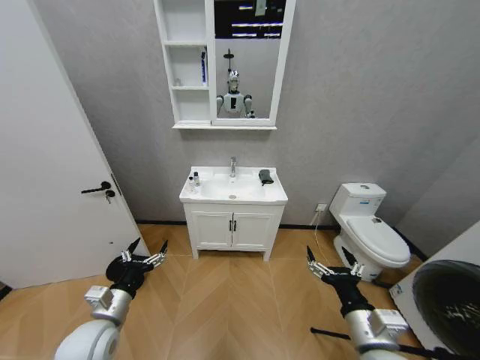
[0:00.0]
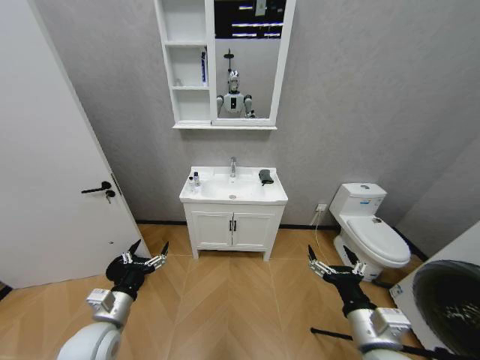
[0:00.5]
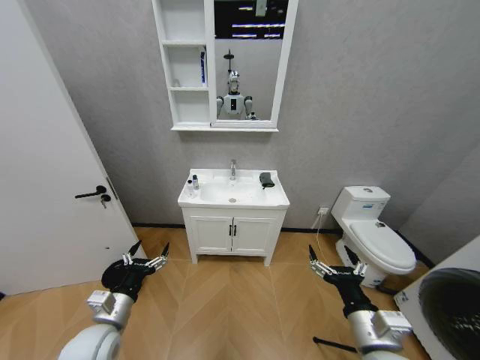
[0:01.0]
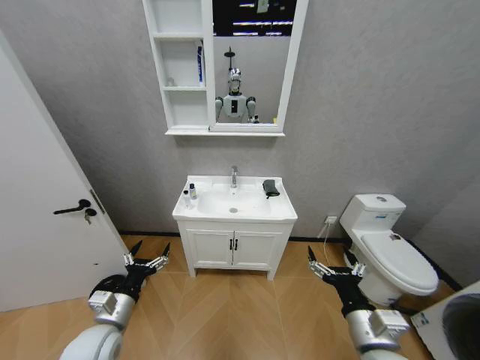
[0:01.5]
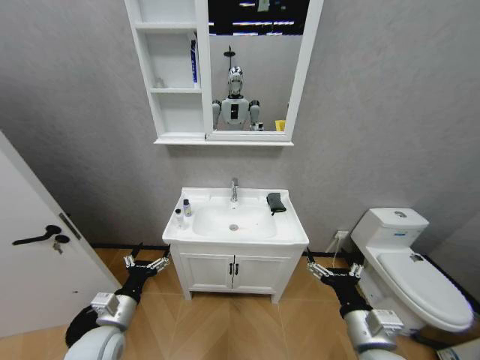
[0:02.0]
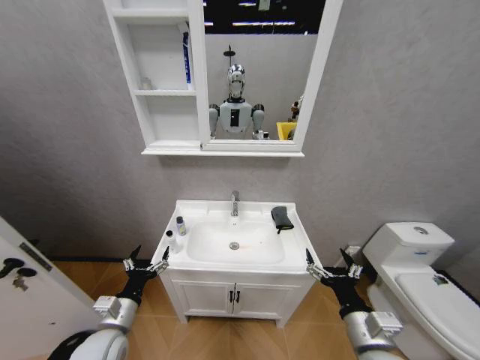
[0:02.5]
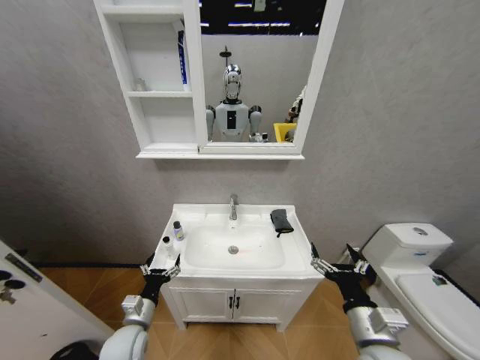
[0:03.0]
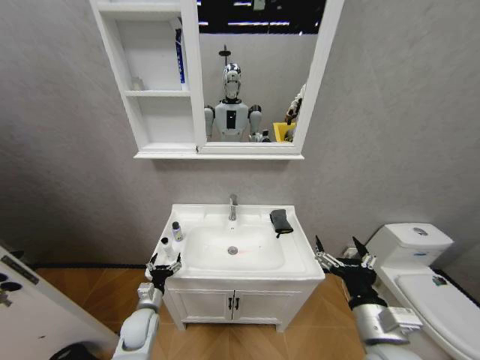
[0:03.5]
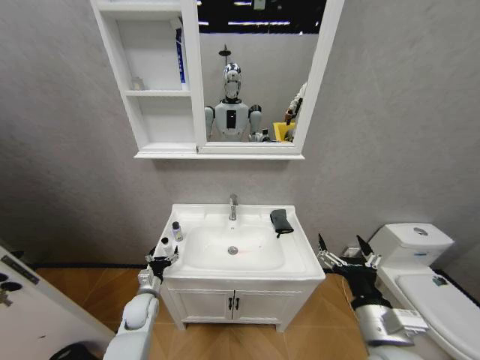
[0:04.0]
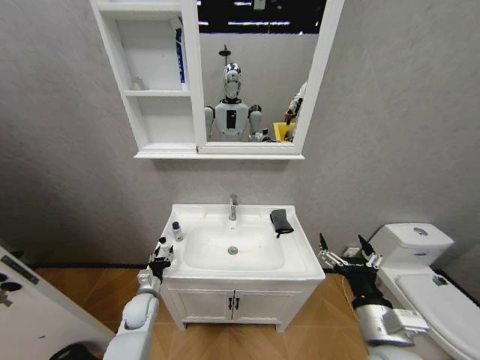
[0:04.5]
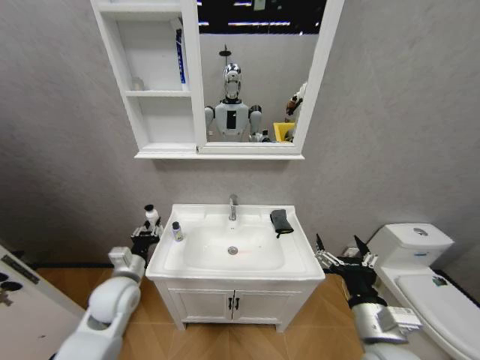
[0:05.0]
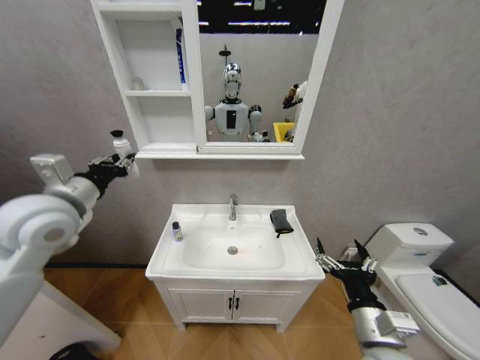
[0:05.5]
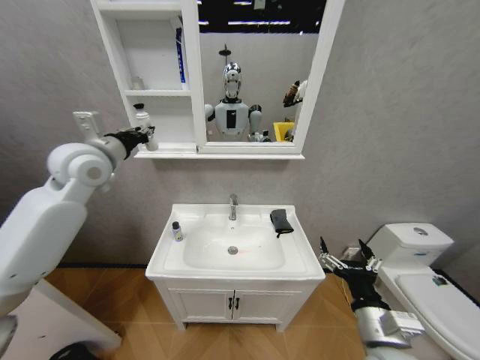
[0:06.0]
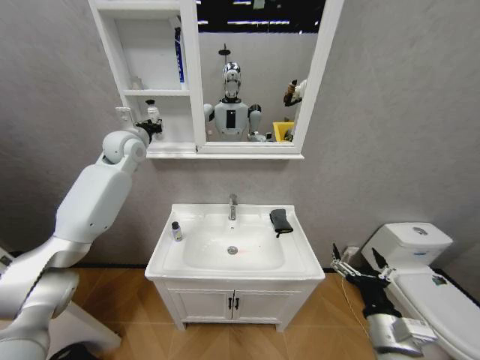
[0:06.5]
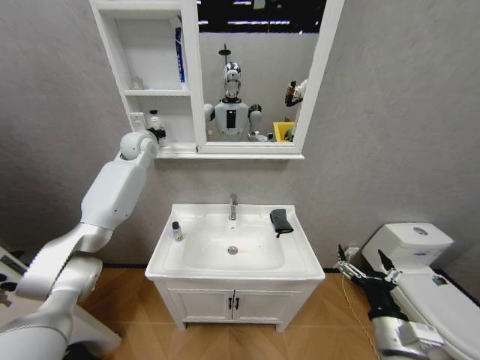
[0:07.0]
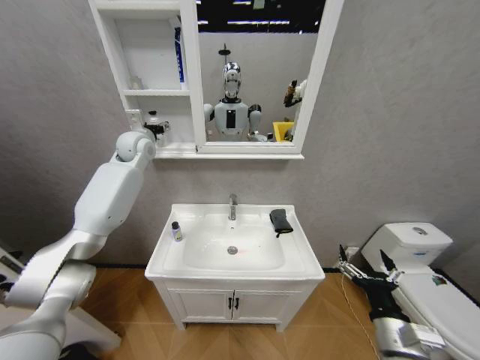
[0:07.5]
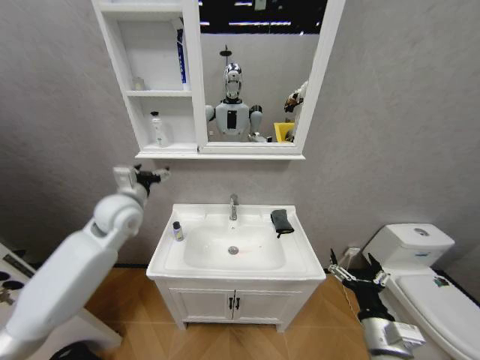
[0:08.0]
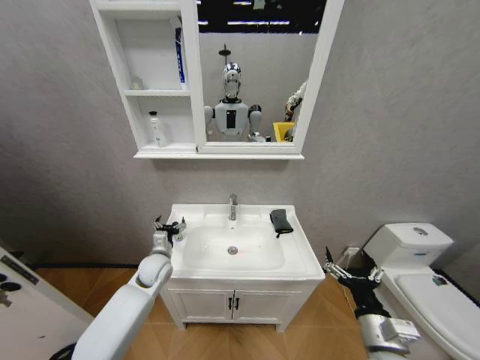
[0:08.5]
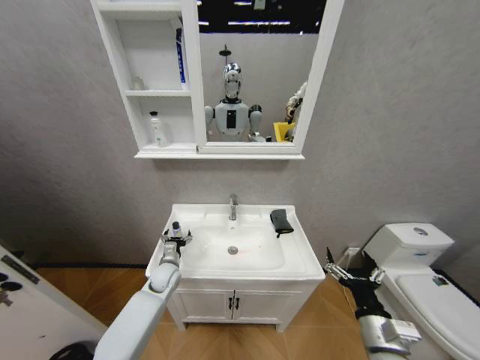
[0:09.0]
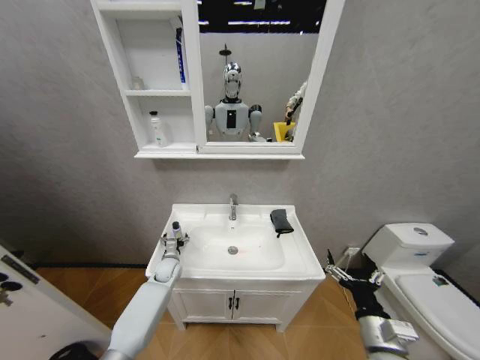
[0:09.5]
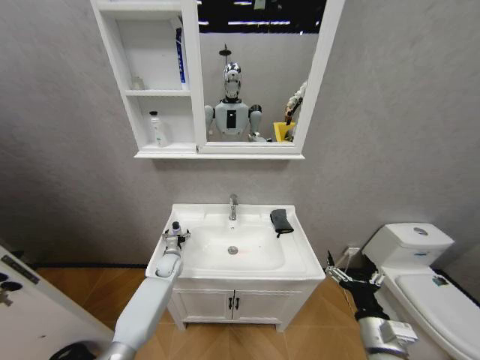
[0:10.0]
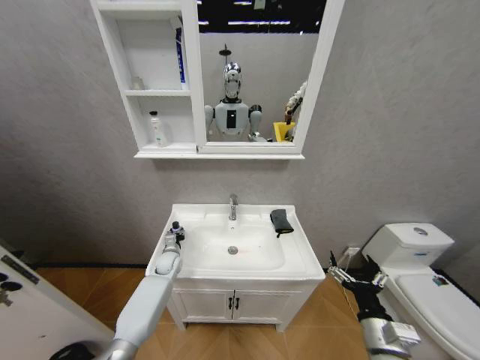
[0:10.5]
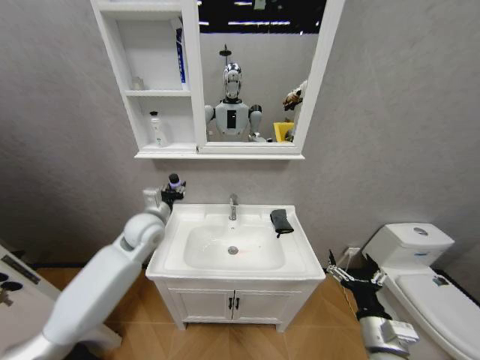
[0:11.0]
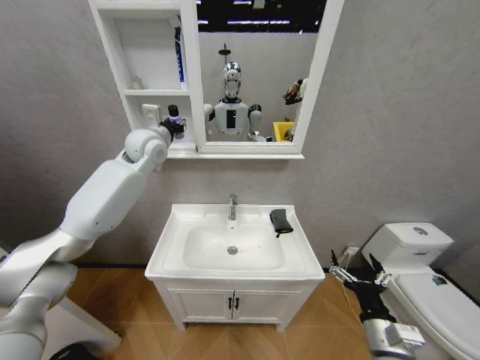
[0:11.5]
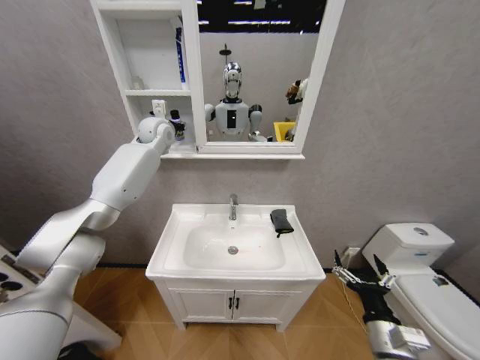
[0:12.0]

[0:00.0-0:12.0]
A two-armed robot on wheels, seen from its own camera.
Task of the whole recording: Move facial cleanser and shampoo from washbasin to cabinet, then wipe washbasin with towel.
0:02.0 to 0:04.0: The left gripper is displaced forward and downward by roughly 20 cm.
0:04.0 to 0:06.0: The left gripper heads upward, covering roughly 50 cm, and closes its fingers.
0:06.0 to 0:08.0: The right gripper moves about 5 cm. Meanwhile the left gripper moves downward, roughly 10 cm, goes forward and returns, about 15 cm each way, and opens its fingers.
0:08.0 to 0:10.0: The left gripper shifts some 35 cm downward.
0:10.0 to 0:12.0: The left gripper is displaced upward by some 50 cm, and closes its fingers.

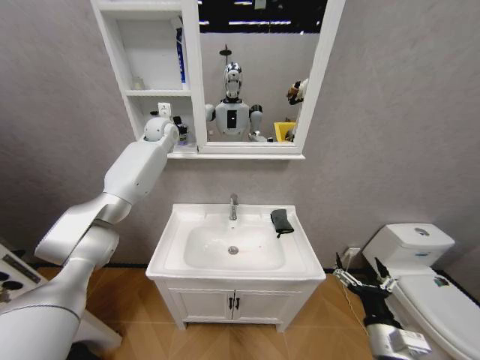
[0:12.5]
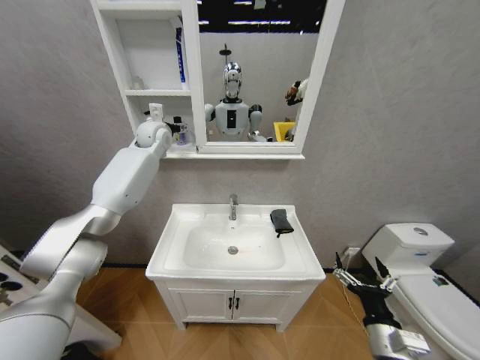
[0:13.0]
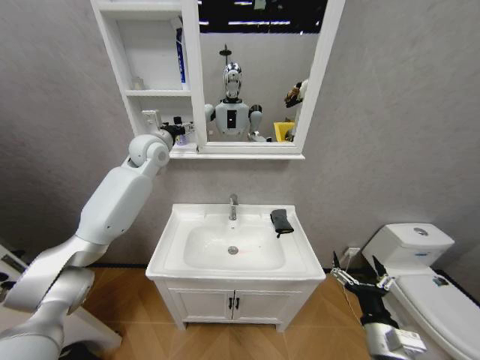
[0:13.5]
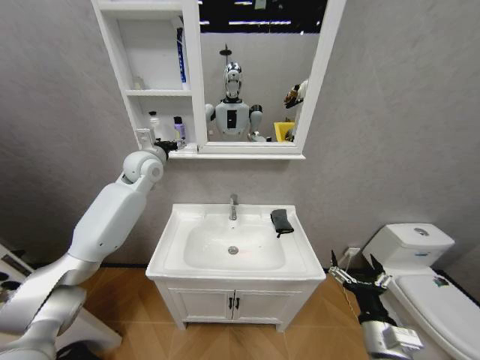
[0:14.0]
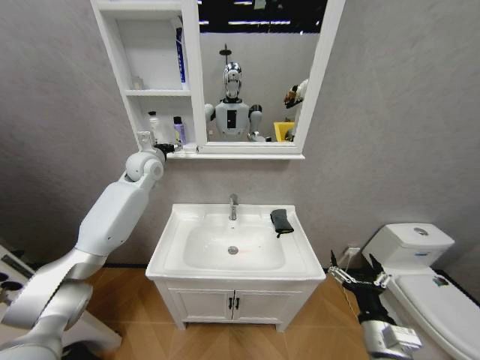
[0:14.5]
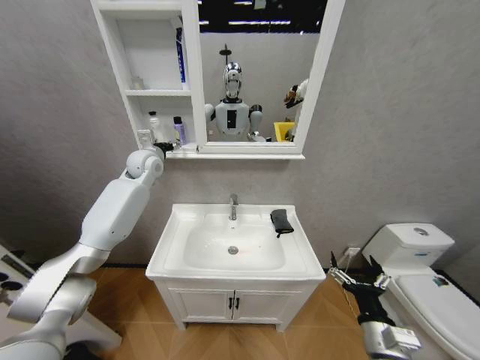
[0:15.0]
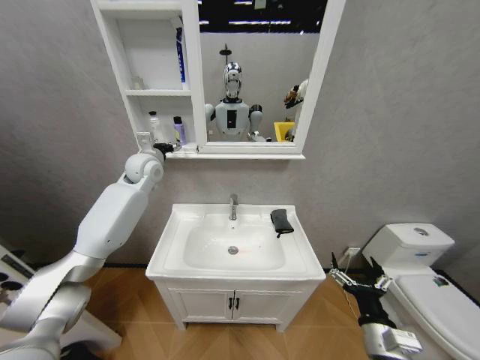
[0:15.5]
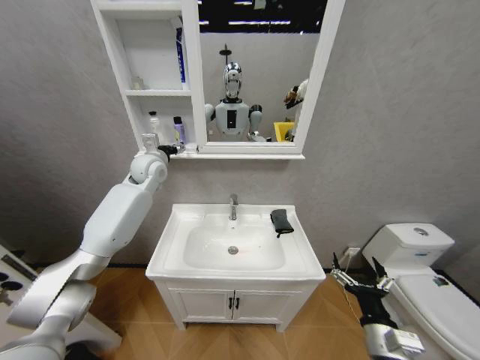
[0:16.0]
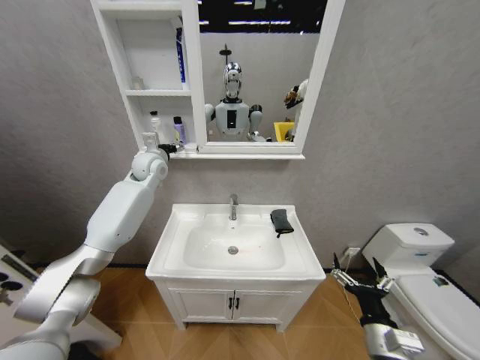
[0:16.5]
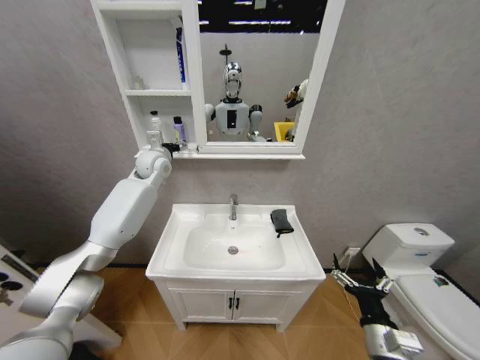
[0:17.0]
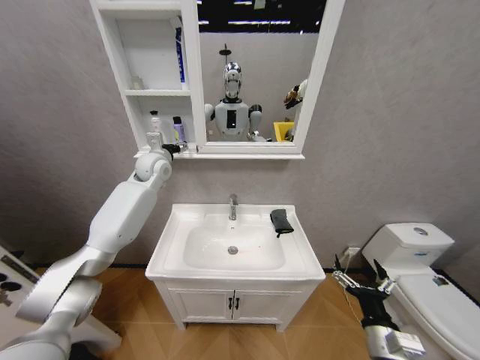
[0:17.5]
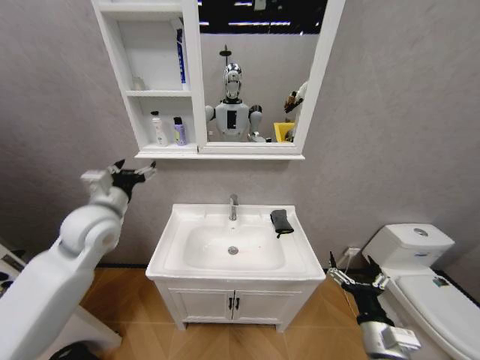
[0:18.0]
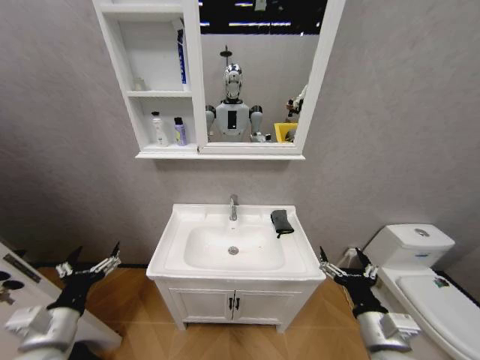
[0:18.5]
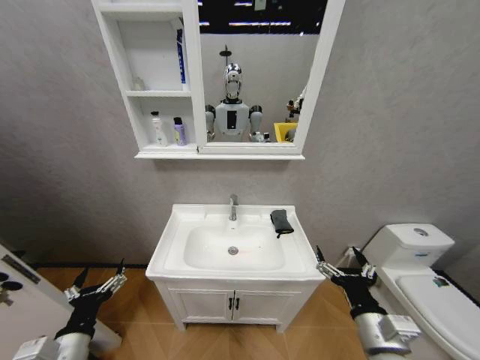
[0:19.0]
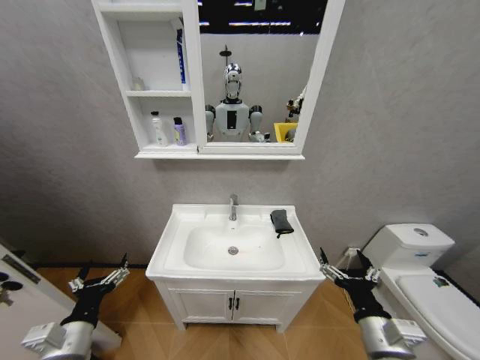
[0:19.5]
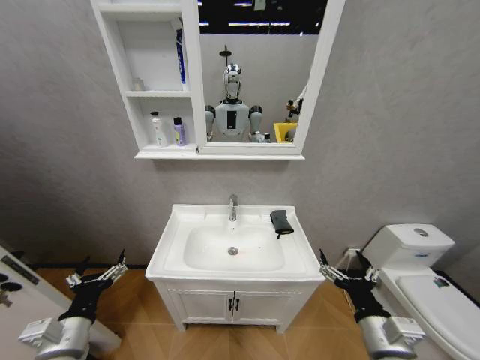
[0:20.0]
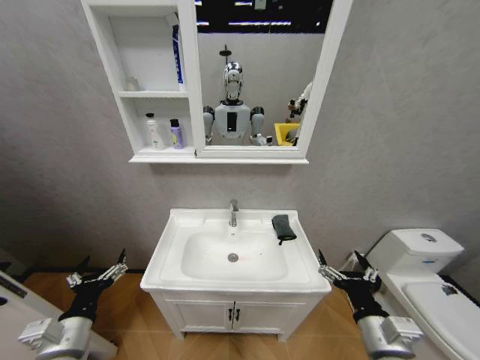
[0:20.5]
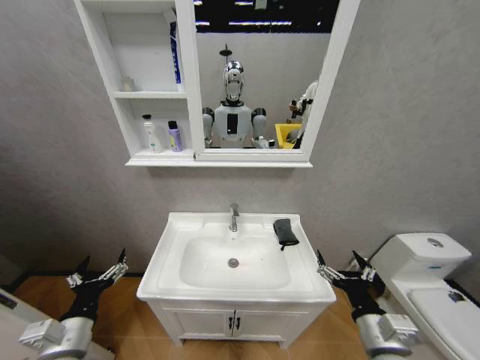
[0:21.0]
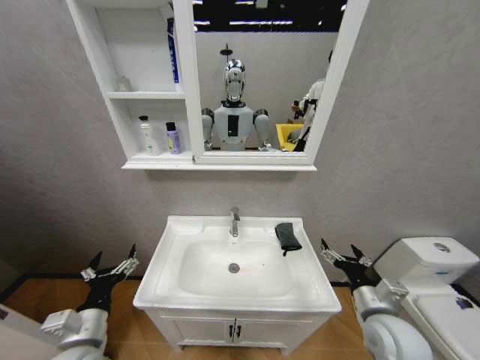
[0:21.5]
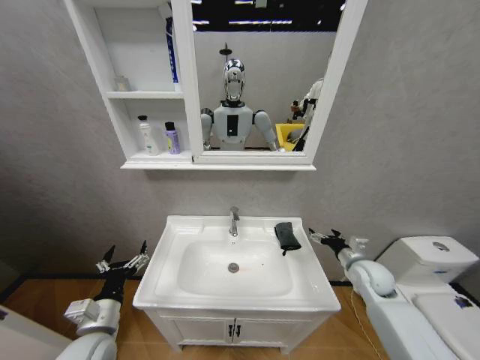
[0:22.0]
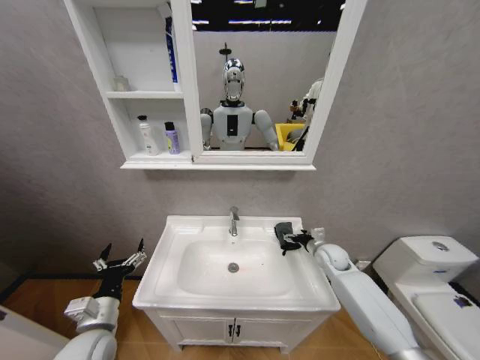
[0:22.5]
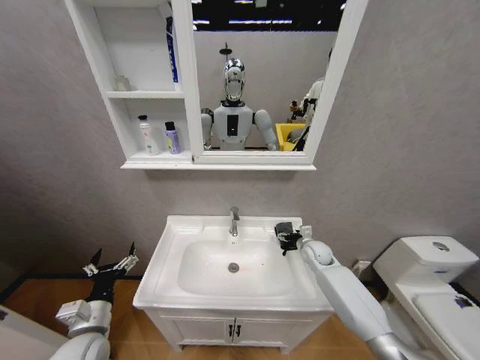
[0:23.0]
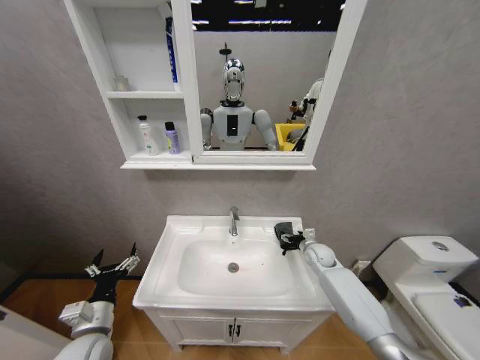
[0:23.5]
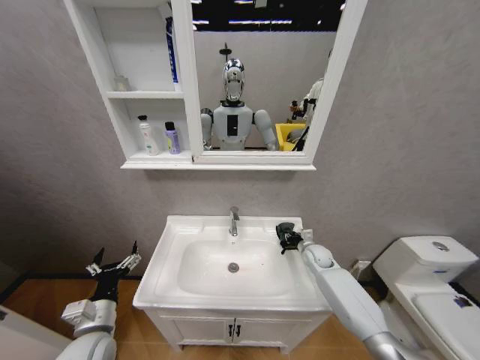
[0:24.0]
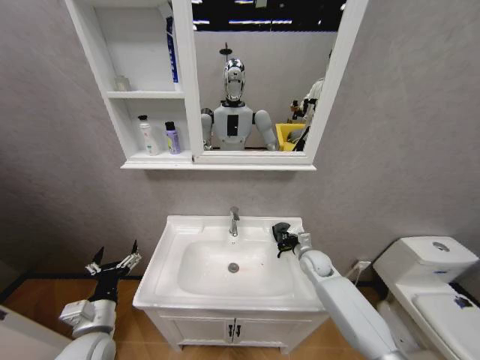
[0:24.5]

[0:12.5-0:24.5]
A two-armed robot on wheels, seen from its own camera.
Task of the whole recording: Move facial cleanser and shampoo from washbasin to cabinet, then wipe washbasin with towel.
0:12.5 to 0:14.5: The left gripper travels backward and downward by roughly 10 cm, and opens up.
0:14.5 to 0:16.5: The grippers move only a little.
0:16.5 to 0:18.5: The left gripper travels backward and downward by about 50 cm.
0:18.5 to 0:20.5: There are only small adjustments of the grippers.
0:20.5 to 0:22.5: The right gripper is displaced forward by roughly 30 cm. The left gripper shifts by roughly 5 cm.
0:22.5 to 0:24.5: The right gripper shifts by roughly 5 cm, and closes its fingers.

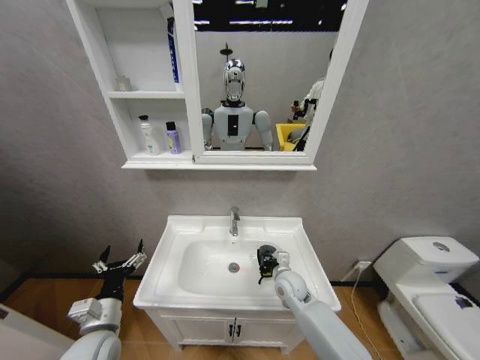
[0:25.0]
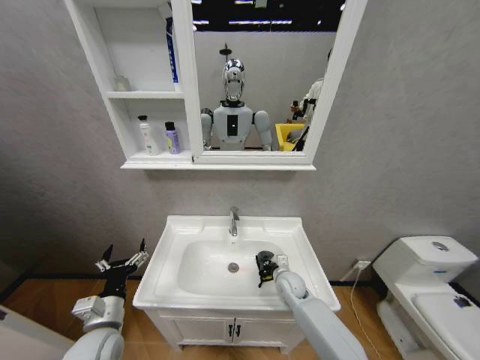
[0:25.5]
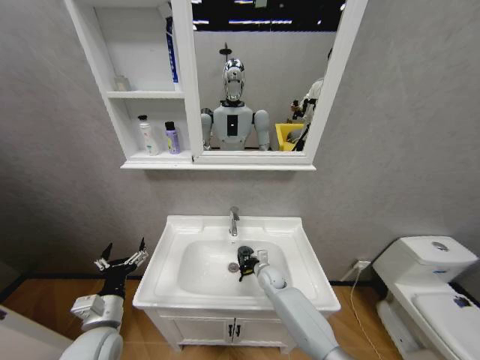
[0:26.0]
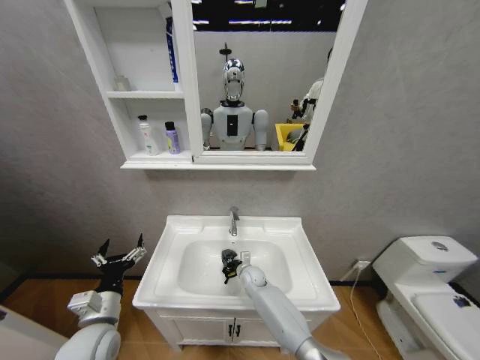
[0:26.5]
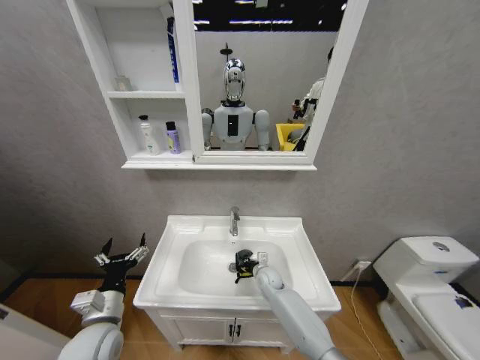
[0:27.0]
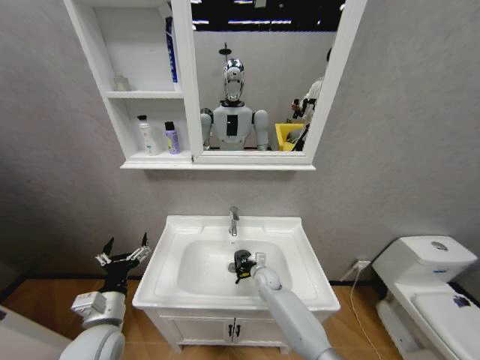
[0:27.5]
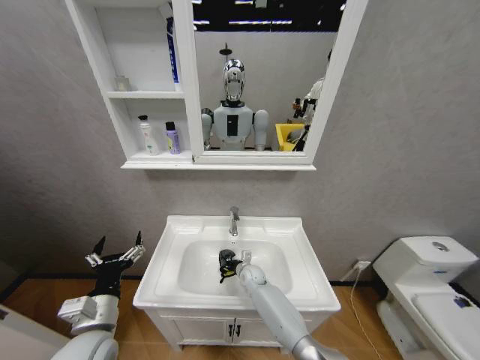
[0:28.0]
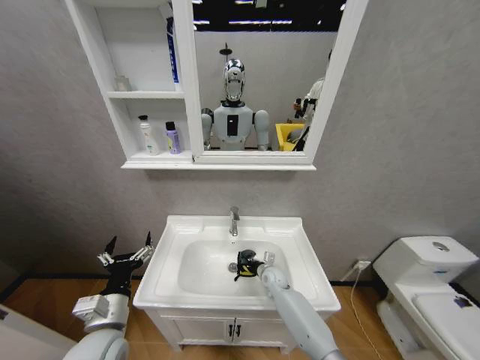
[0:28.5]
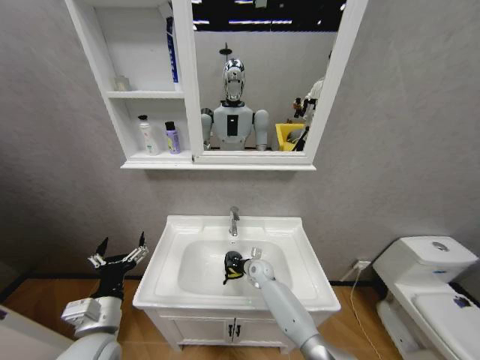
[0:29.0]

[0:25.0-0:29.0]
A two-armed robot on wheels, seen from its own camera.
Task of the whole recording: Move facial cleanser and shampoo from washbasin to cabinet, then wipe washbasin with towel.
0:25.0 to 0:27.0: The right gripper goes approximately 10 cm downward and forward, and reaches about 10 cm to the left, then returns.
0:27.0 to 0:29.0: The right gripper goes left and right, approximately 10 cm each way, reversing 2 times.
